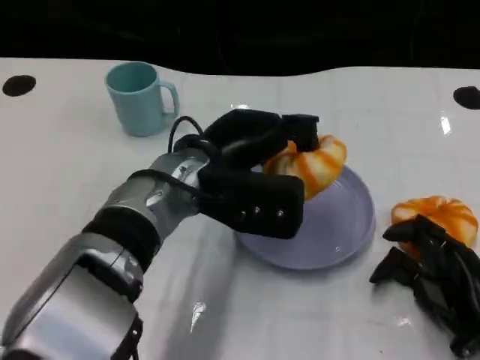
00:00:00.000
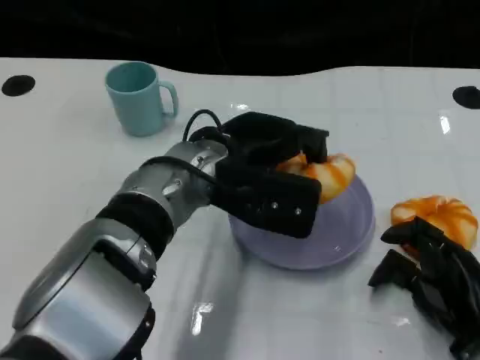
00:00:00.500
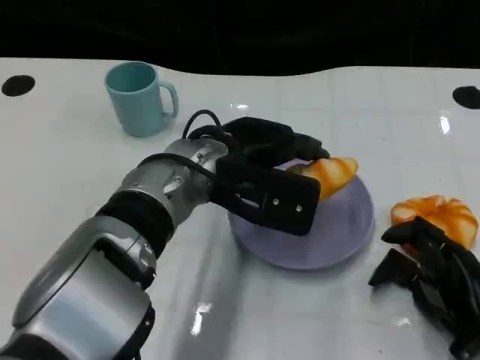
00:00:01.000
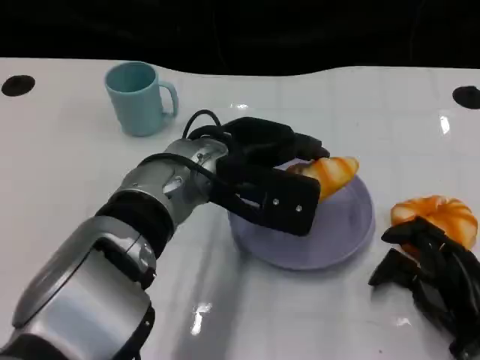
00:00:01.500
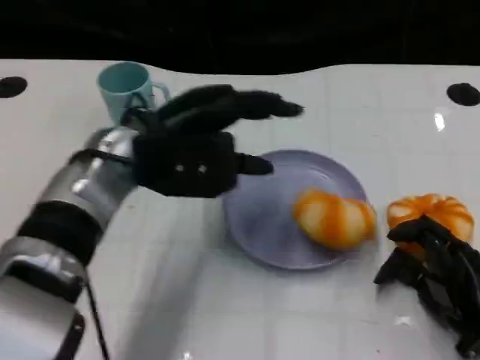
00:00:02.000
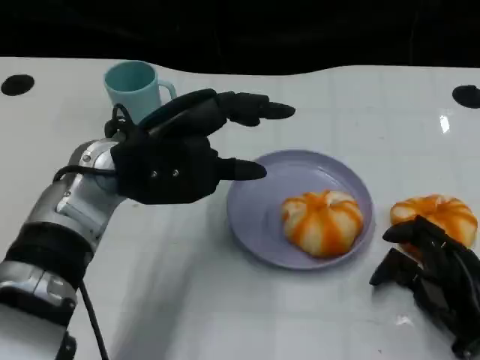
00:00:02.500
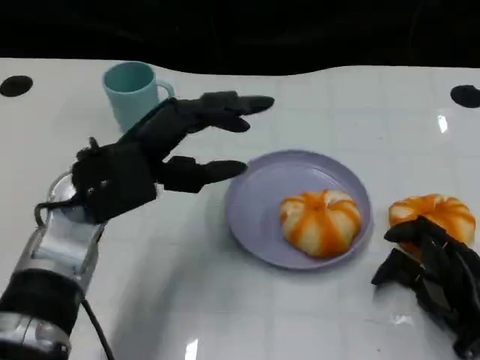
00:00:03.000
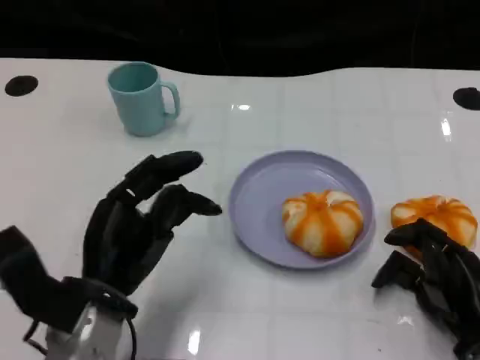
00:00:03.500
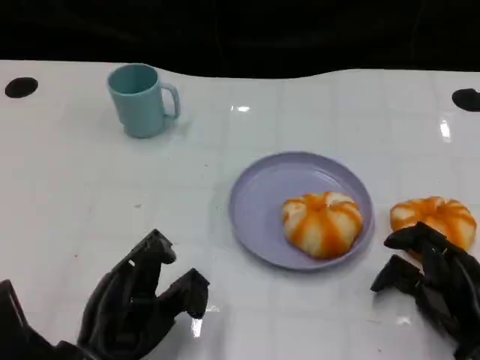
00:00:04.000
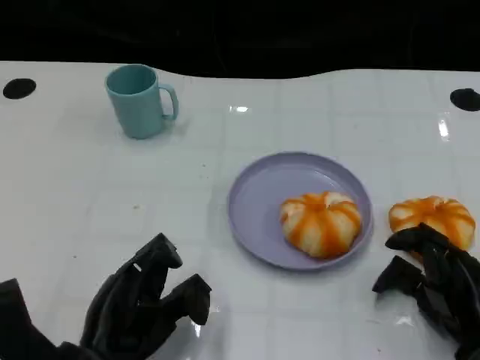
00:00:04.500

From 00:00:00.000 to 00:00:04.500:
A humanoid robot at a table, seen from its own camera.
Task of the whole recording: Grasp the bread from the table and place it into the plate.
From 00:00:00.000 to 00:00:02.000: The left hand goes approximately 5 cm to the left.
From 00:00:02.000 to 00:00:04.500: The left hand is displaced backward and downward by roughly 20 cm.
